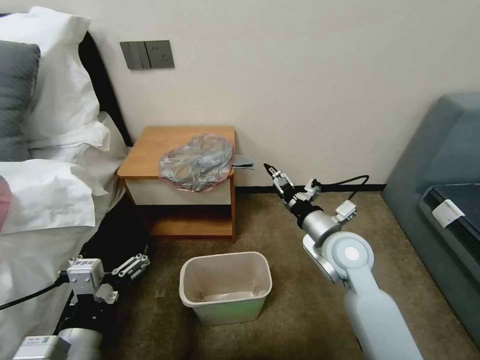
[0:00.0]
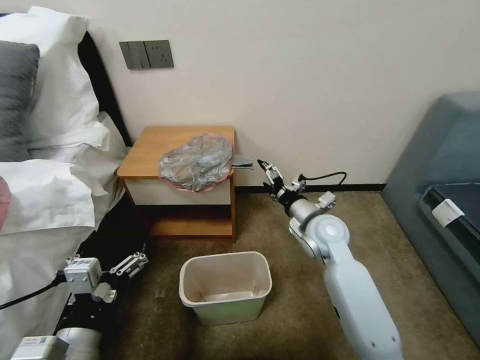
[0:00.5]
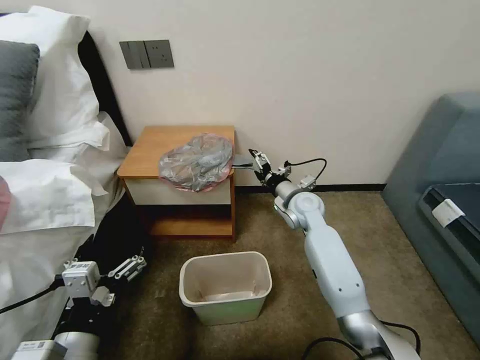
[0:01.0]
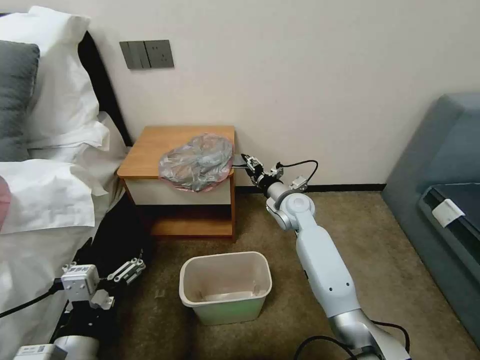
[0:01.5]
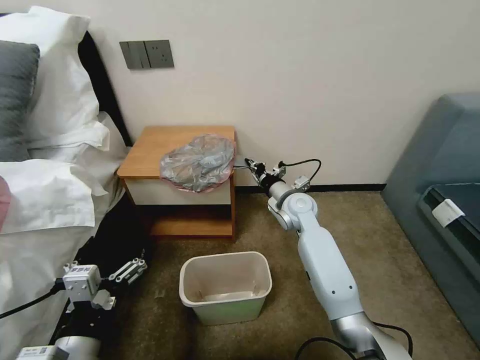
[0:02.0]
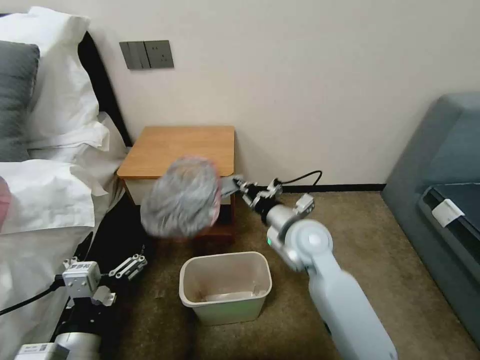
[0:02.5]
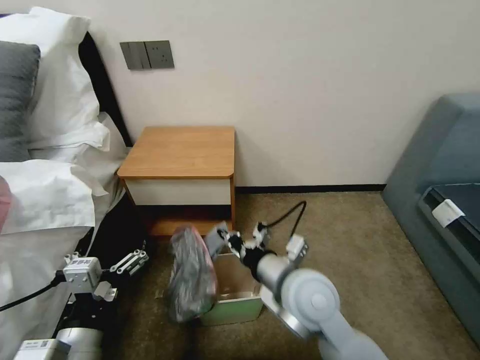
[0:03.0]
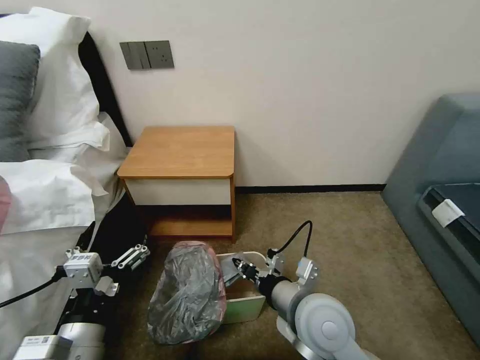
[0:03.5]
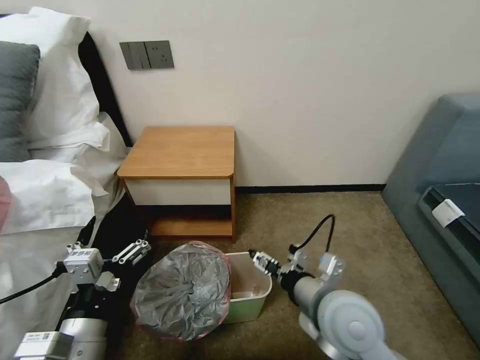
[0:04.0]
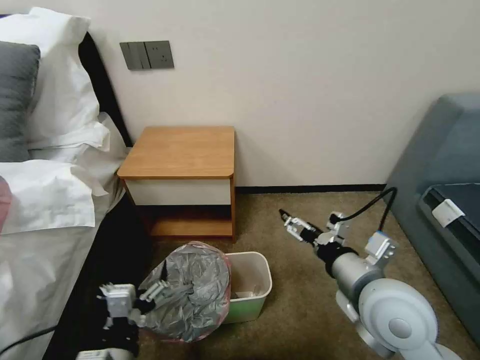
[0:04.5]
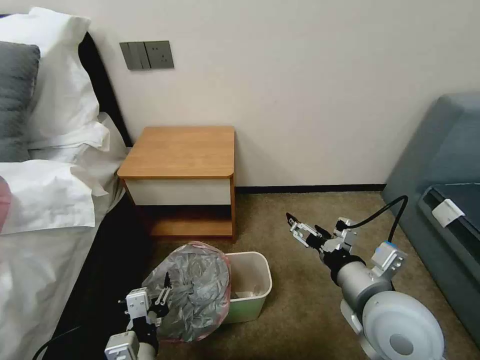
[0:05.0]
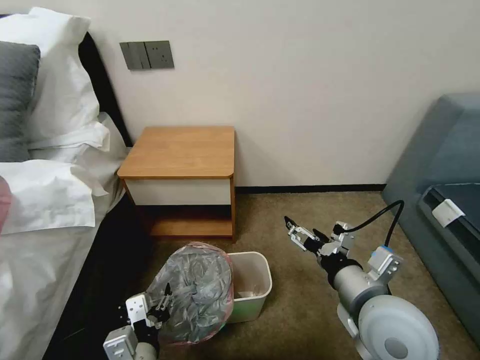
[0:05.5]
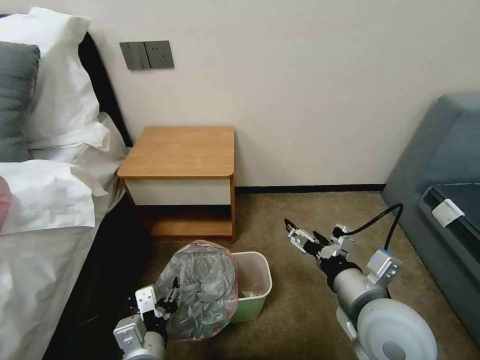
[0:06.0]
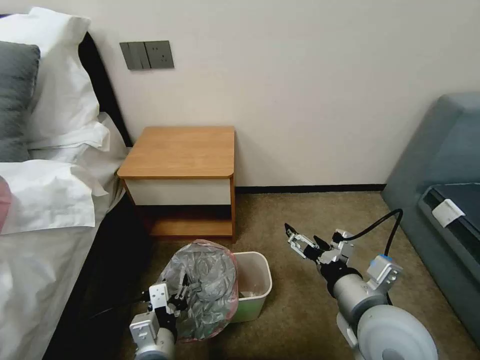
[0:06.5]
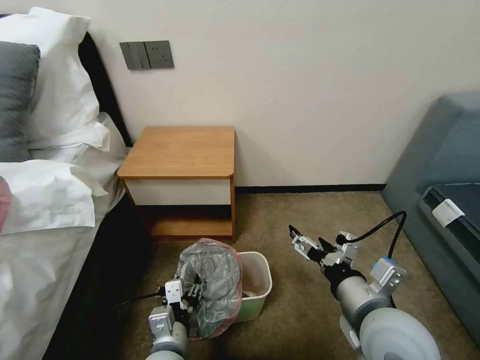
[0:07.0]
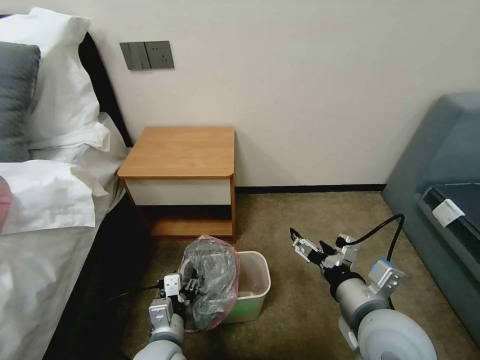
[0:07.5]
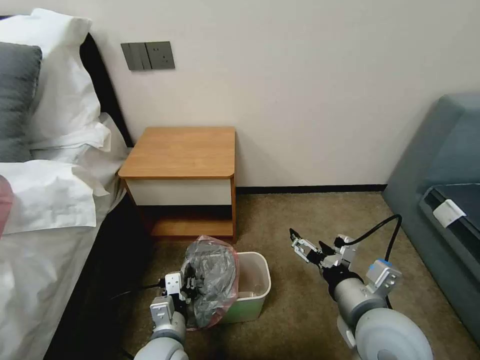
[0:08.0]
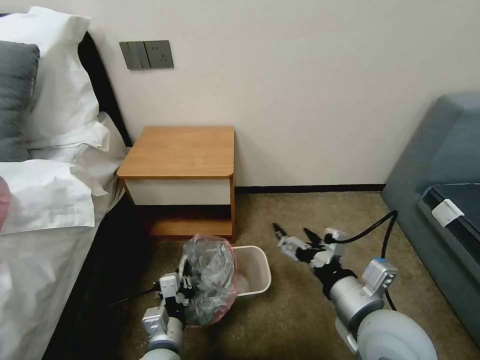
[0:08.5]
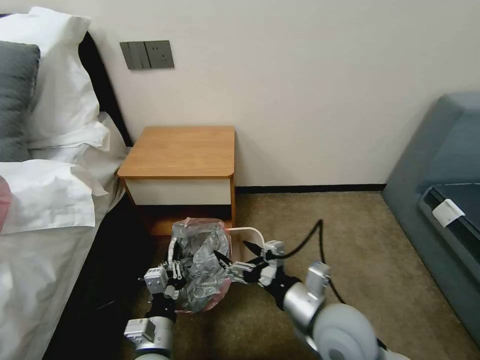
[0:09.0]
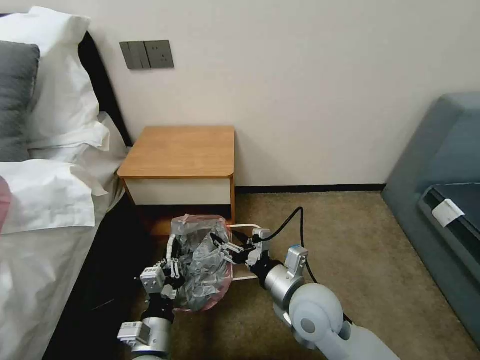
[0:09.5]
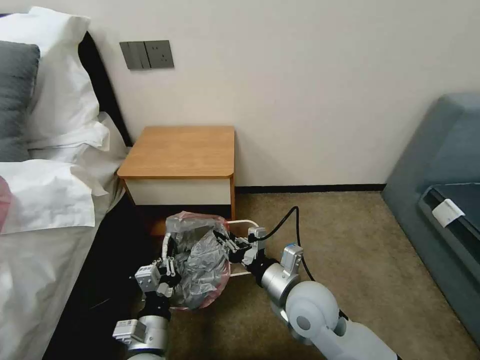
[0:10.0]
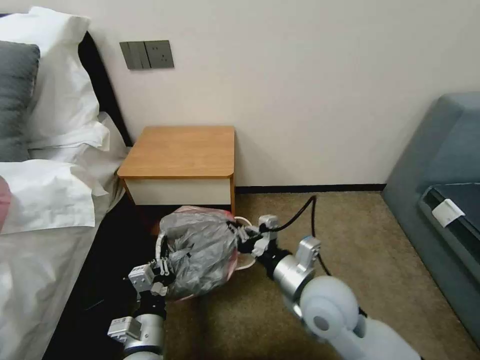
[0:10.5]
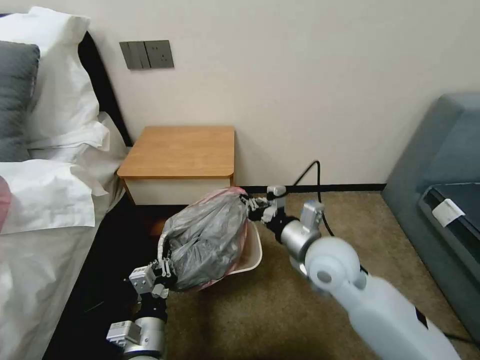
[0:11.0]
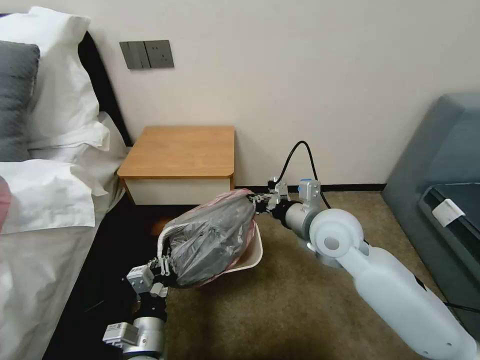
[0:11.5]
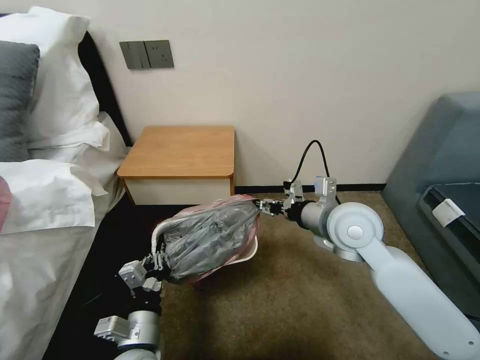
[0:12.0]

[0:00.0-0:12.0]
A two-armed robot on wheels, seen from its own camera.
Task of the whole recording: Pick up the garbage bag from the table and place it over the trash can.
0:00.0 to 0:02.0: The right gripper goes some 15 cm forward, and closes up.
0:02.0 to 0:04.0: The right gripper goes roughly 25 cm backward, and opens.
0:04.0 to 0:06.0: The left gripper travels downward and to the right by approximately 10 cm, and closes, while the right gripper changes place by about 5 cm.
0:06.0 to 0:08.0: The left gripper shifts approximately 5 cm downward, and closes its fingers.
0:08.0 to 0:10.0: The right gripper moves to the left, forward and downward, approximately 15 cm, and closes.
0:10.0 to 0:12.0: The right gripper heads upward, forward and to the right, covering roughly 20 cm.

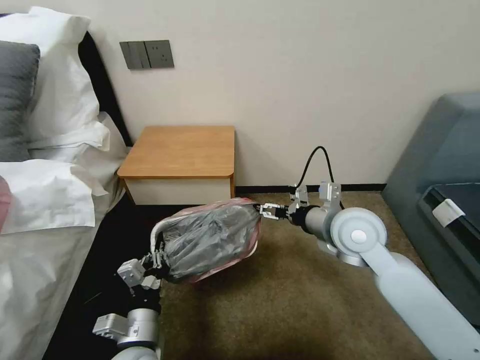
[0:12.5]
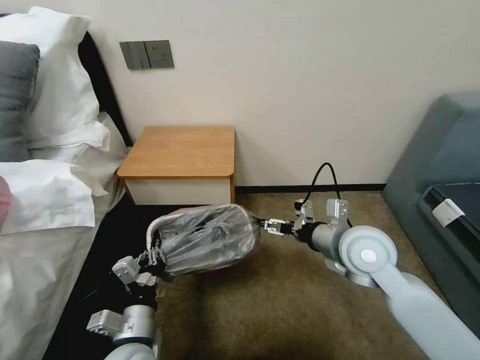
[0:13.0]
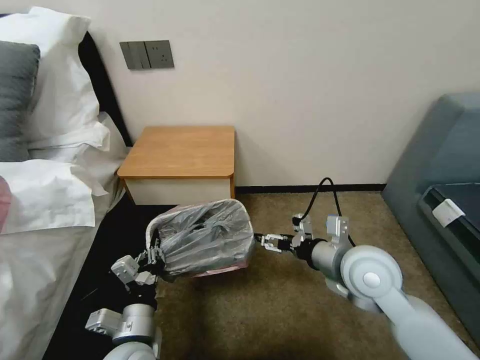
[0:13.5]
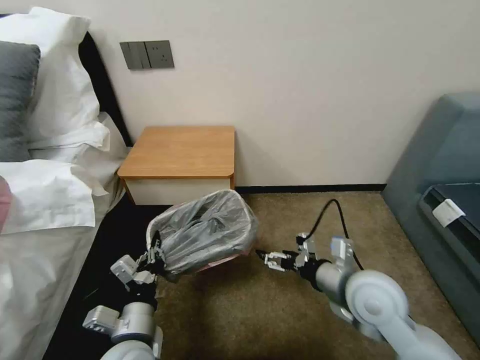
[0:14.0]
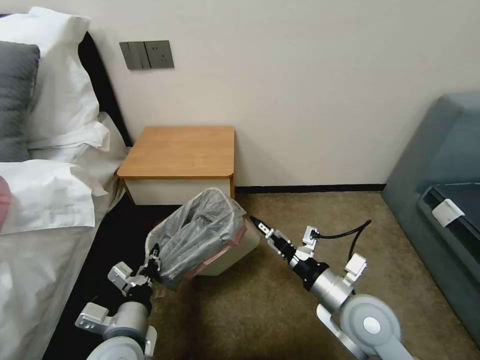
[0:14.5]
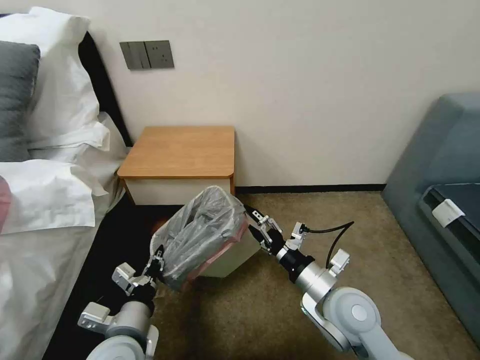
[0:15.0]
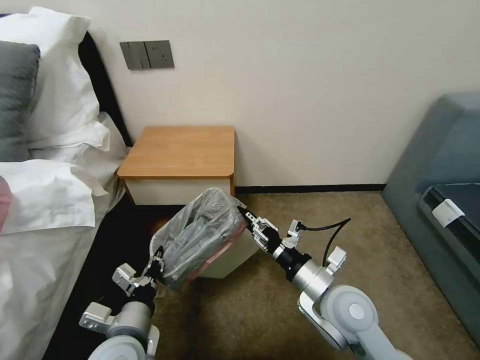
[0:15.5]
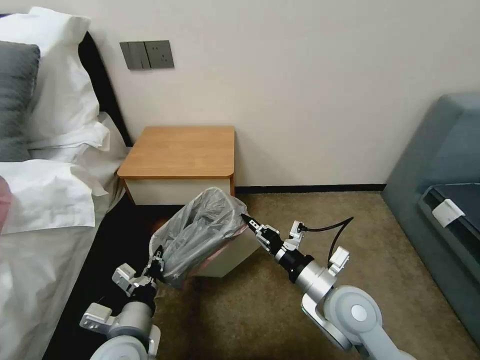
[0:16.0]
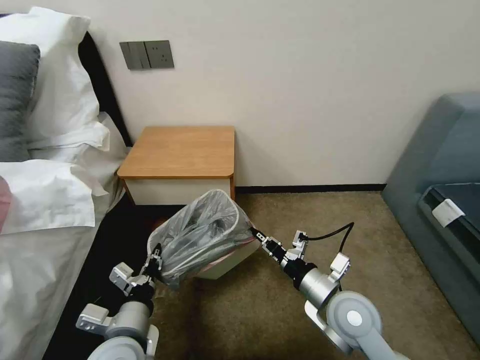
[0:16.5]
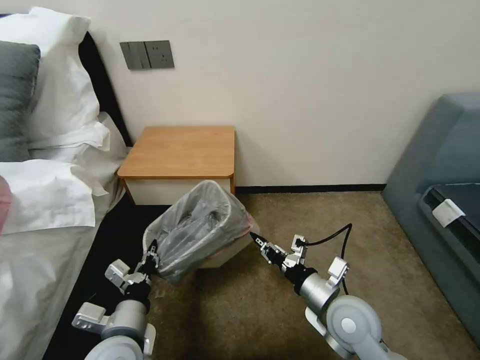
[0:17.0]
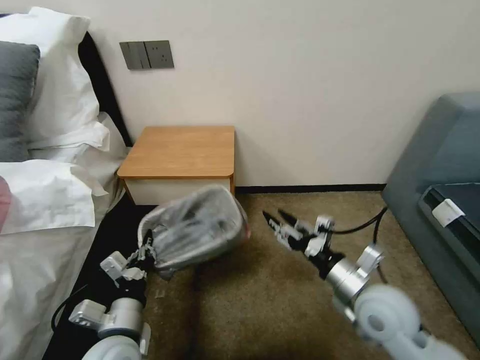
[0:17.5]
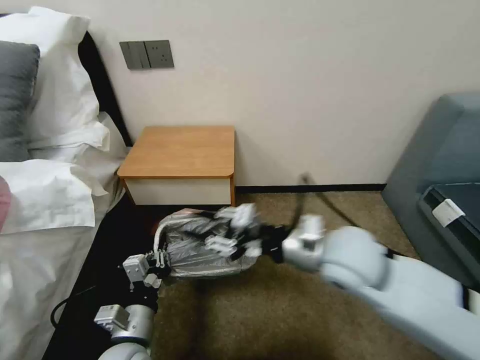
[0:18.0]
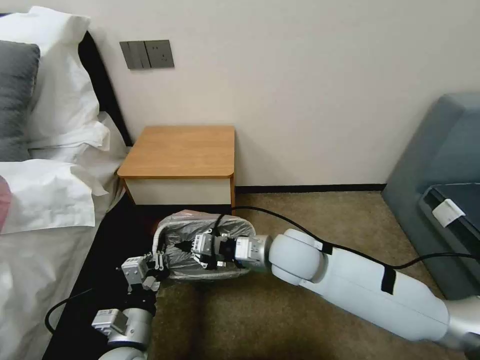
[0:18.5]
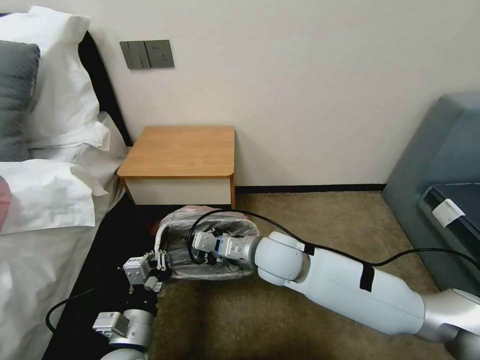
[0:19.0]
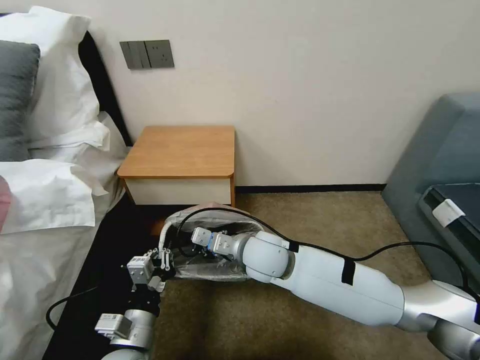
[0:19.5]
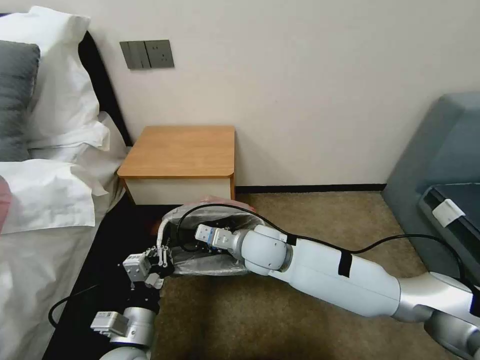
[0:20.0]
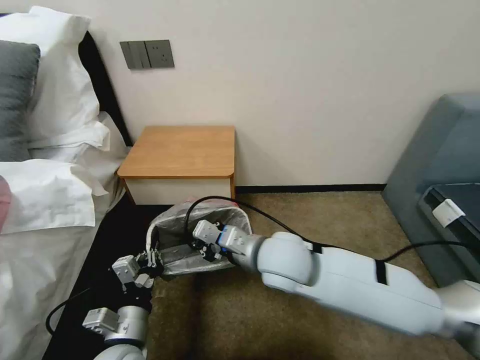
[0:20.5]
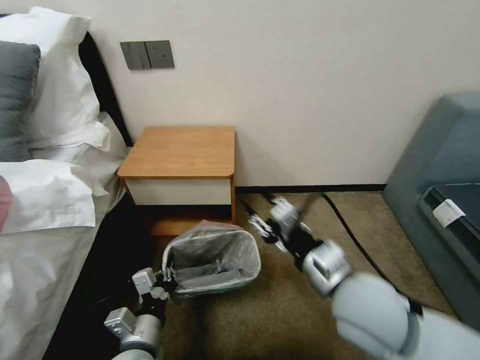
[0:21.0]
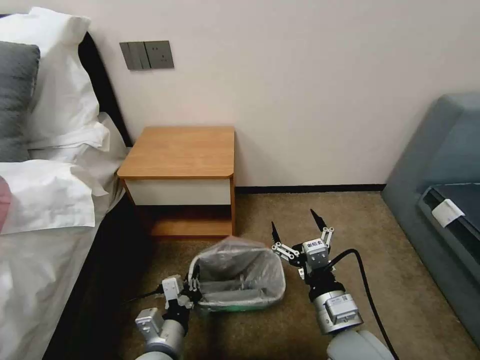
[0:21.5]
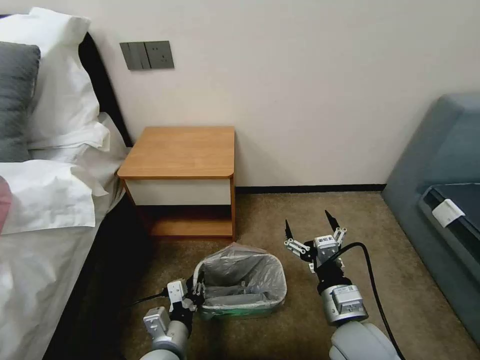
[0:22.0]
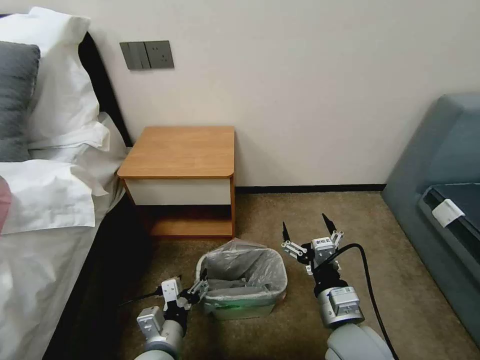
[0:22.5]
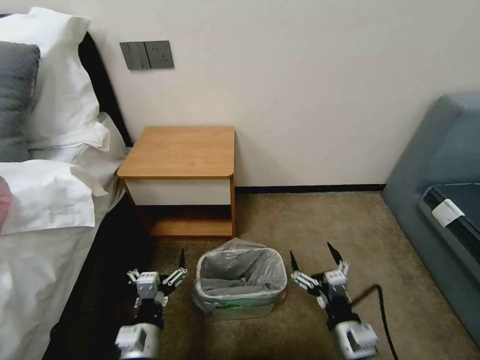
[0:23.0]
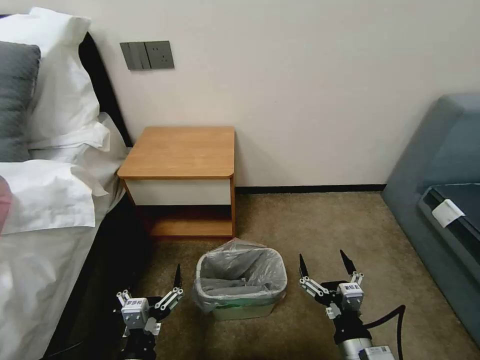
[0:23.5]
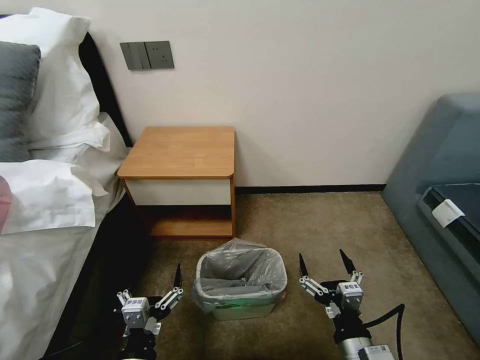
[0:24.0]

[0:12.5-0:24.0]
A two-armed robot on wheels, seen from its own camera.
Task of the whole recording: Pick up the garbage bag from the table and place it over the trash can.
0:12.5 to 0:14.5: The right gripper travels backward and downward by about 15 cm.
0:14.5 to 0:16.5: The right gripper closes its fingers.
0:16.5 to 0:18.5: The right gripper travels to the left, forward and upward by approximately 15 cm, and opens and closes again.
0:18.5 to 0:20.0: The right gripper shifts about 5 cm to the left.
0:20.0 to 0:22.0: The right gripper shifts approximately 25 cm backward and to the right, and opens. The left gripper travels downward by some 5 cm.
0:22.0 to 0:24.0: The right gripper moves backward and downward, roughly 10 cm. Meanwhile the left gripper shifts some 10 cm backward, and opens up.

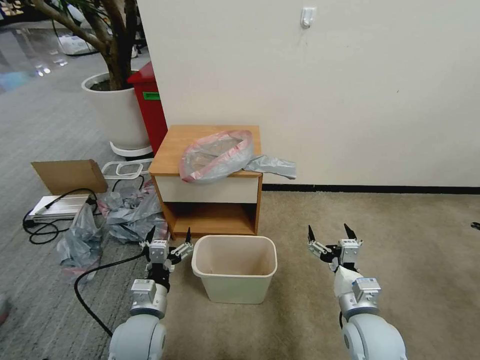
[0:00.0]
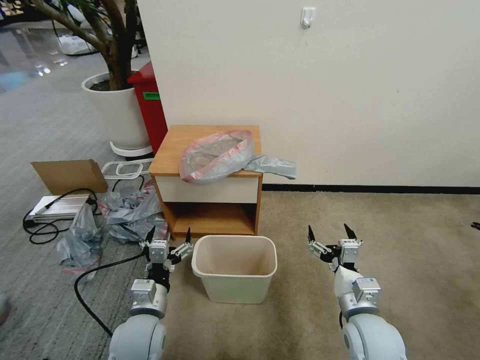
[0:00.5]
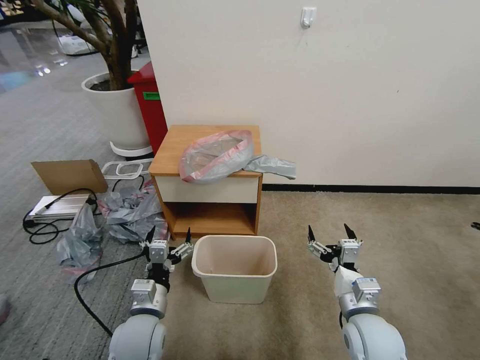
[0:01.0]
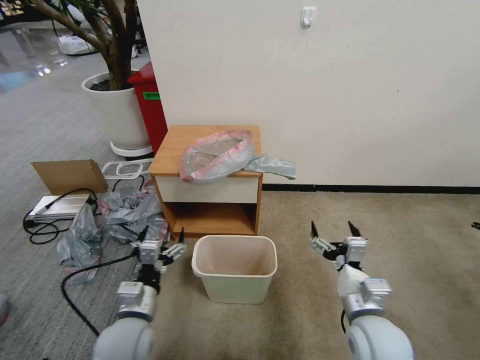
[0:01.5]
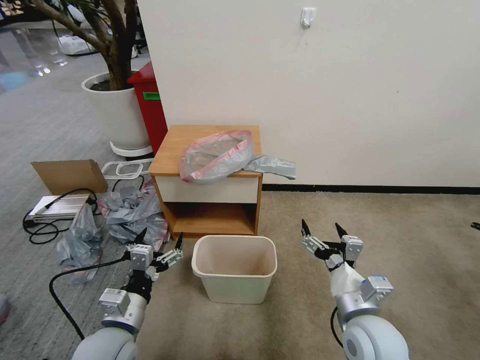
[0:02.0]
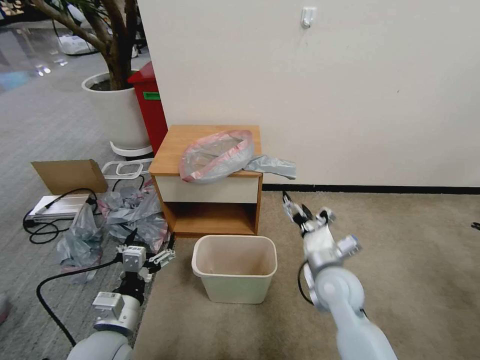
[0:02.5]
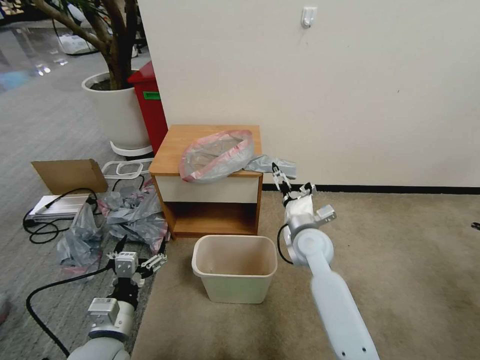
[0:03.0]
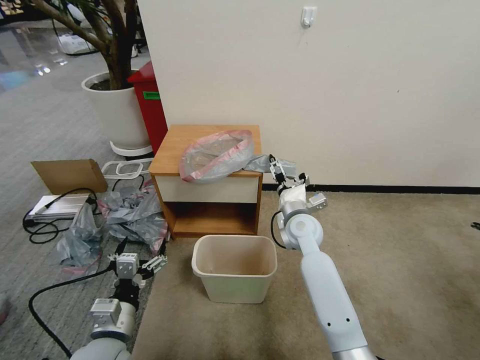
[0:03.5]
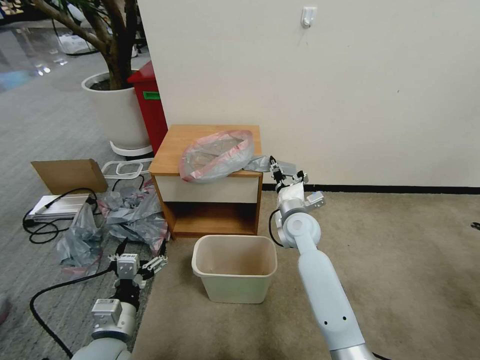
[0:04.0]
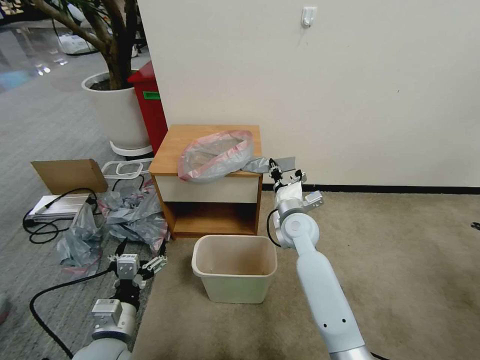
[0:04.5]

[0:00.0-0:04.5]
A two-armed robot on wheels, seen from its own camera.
Task of the whole recording: Pick up the garbage bag from the table and place it over the trash can.
0:02.0 to 0:04.5: The right gripper is displaced forward by approximately 25 cm, and closes its fingers.
